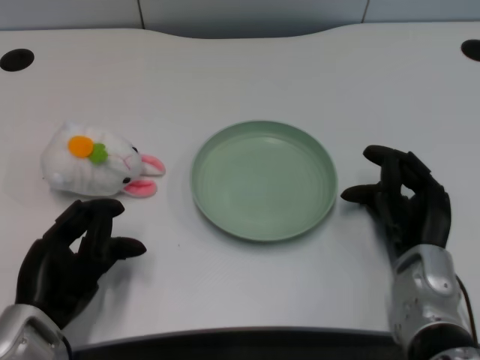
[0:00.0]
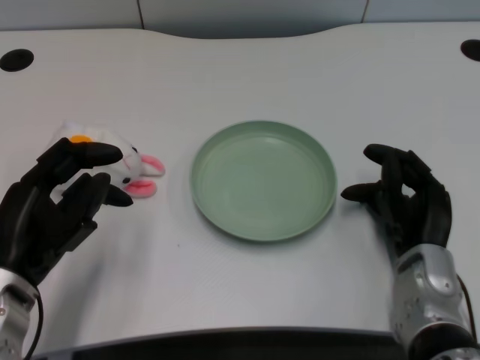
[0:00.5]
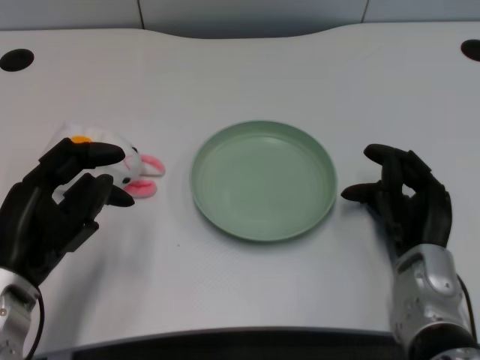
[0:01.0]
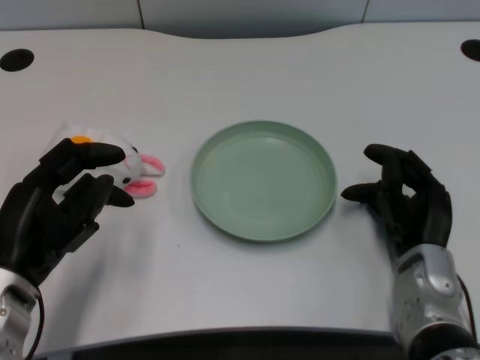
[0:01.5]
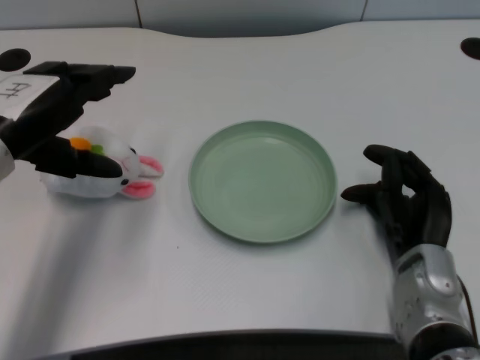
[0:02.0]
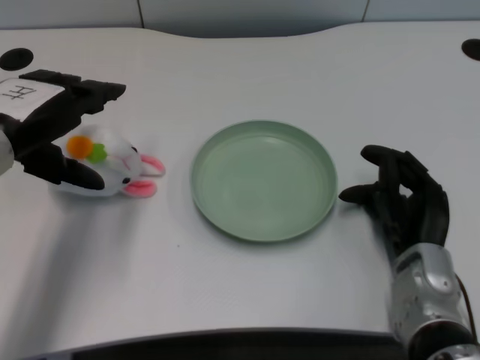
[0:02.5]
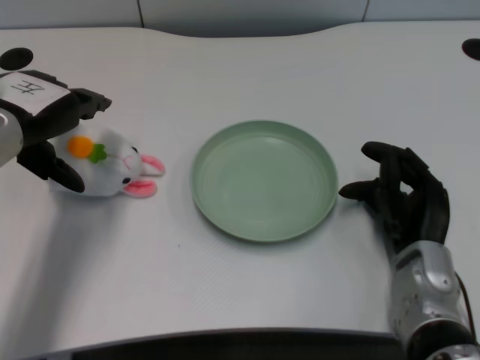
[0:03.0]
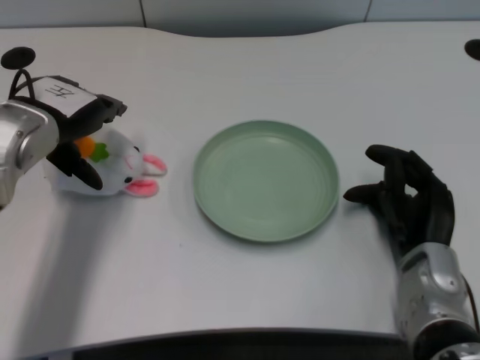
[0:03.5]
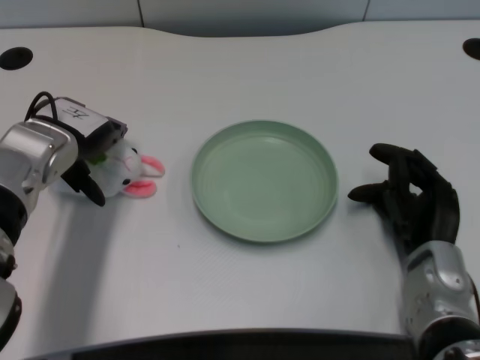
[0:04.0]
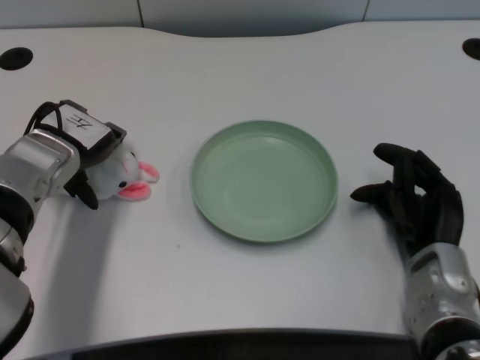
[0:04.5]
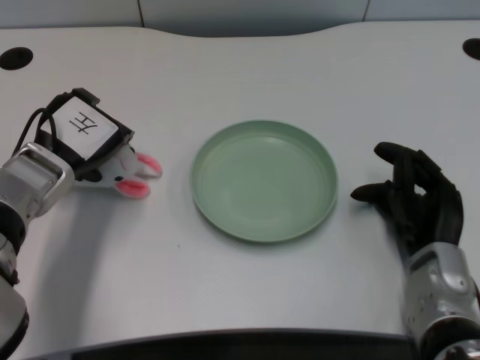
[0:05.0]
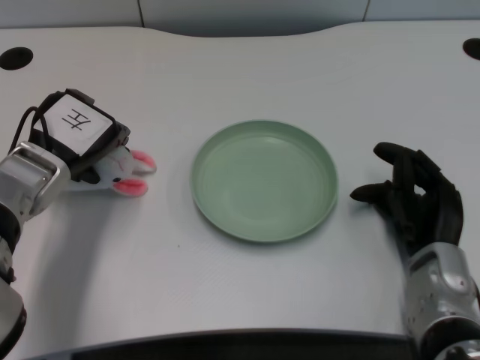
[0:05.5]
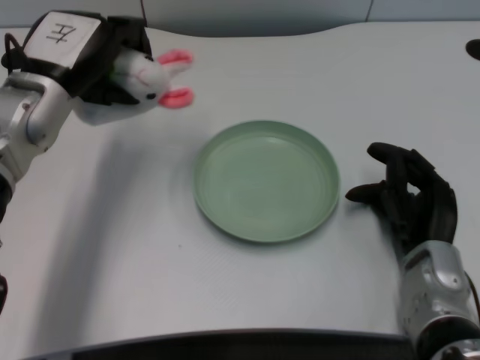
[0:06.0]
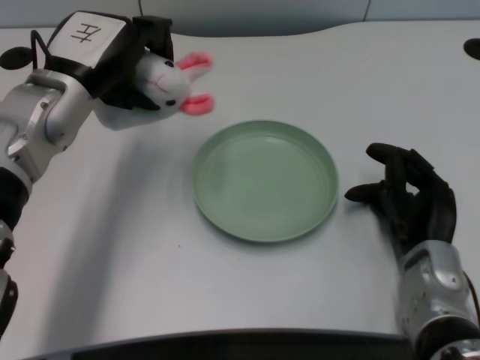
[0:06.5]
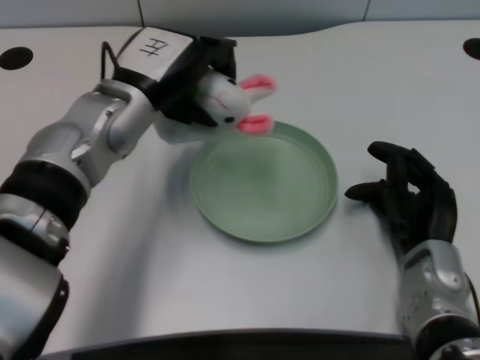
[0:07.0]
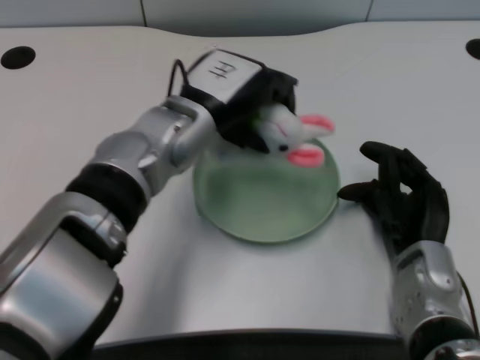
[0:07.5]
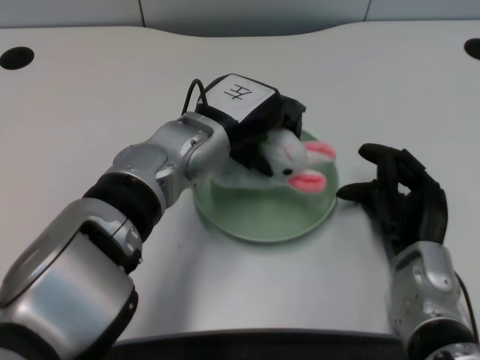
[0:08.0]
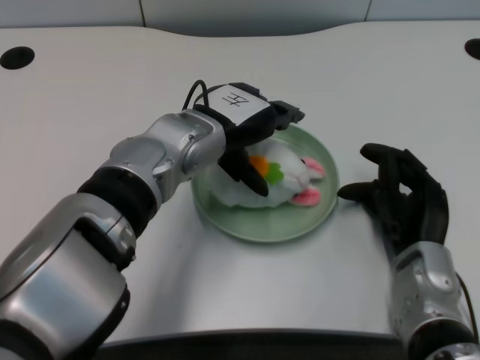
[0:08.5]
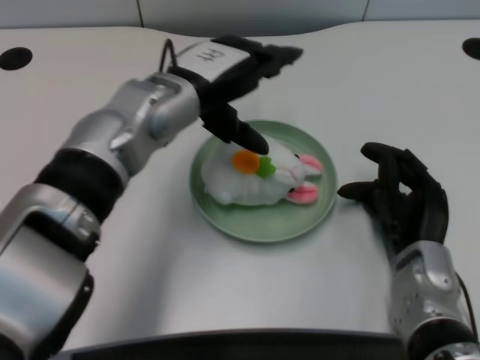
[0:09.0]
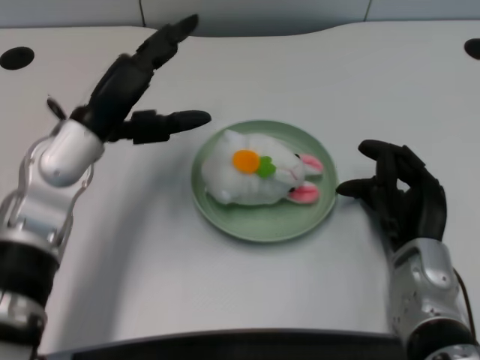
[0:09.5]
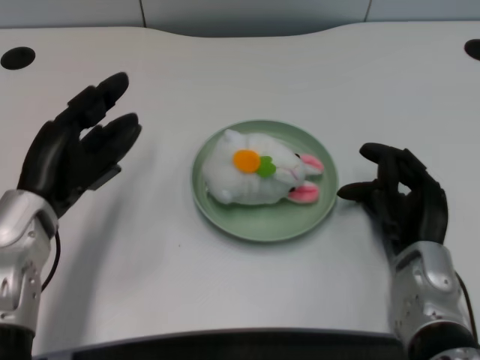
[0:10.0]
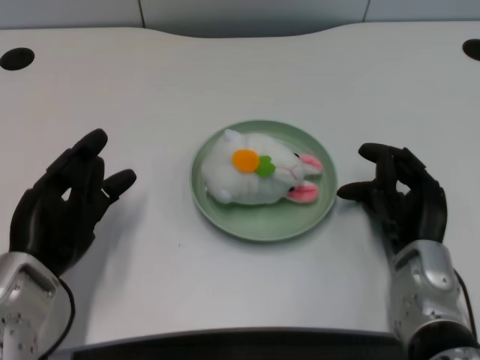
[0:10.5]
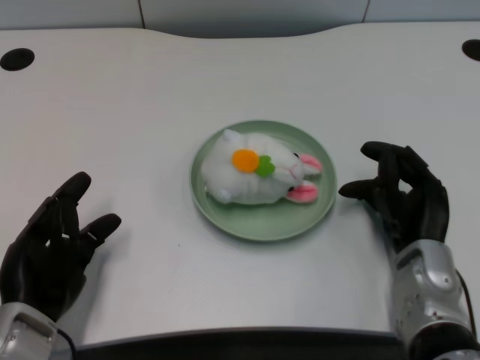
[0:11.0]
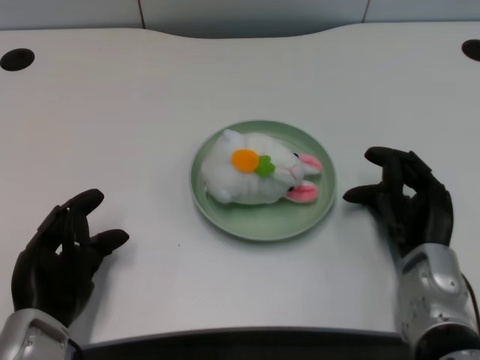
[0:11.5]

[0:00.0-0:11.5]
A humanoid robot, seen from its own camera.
Task of the whole recording: pick up the rabbit doll from the table and place it on the plate.
Step, 0:02.0 to 0:05.5: Grasp the rabbit doll with the left gripper.
Step, 0:06.0 to 0:08.5: Place the rabbit doll into the plate with the left gripper.
0:02.0 to 0:04.0: The left hand shifts roughly 10 cm forward and downward.
0:06.0 to 0:07.5: The left hand moves to the right, roughly 15 cm.
0:07.5 to 0:09.5: The left hand heads to the left, covering roughly 10 cm.
0:09.5 to 0:11.5: The left hand travels backward and downward by about 15 cm.

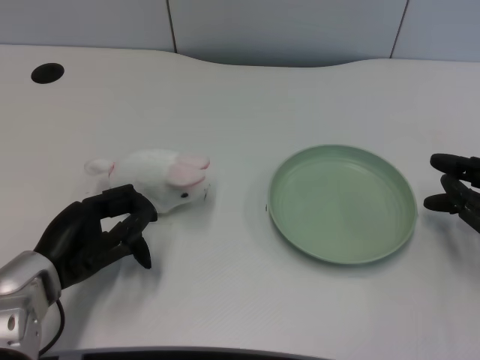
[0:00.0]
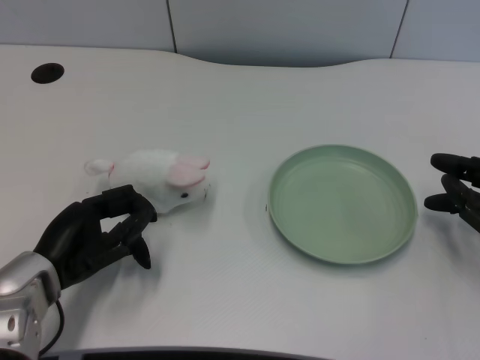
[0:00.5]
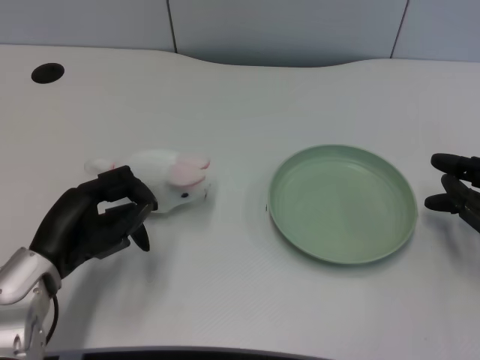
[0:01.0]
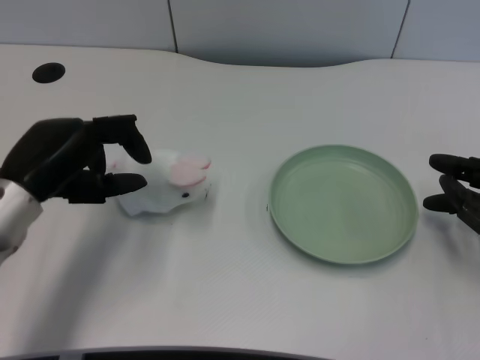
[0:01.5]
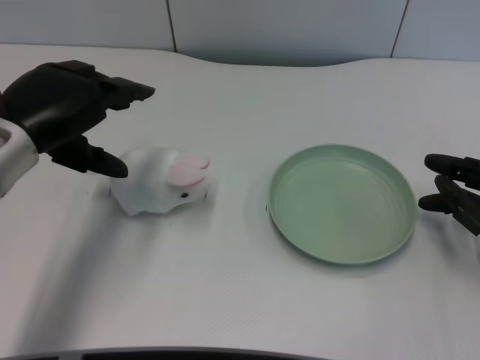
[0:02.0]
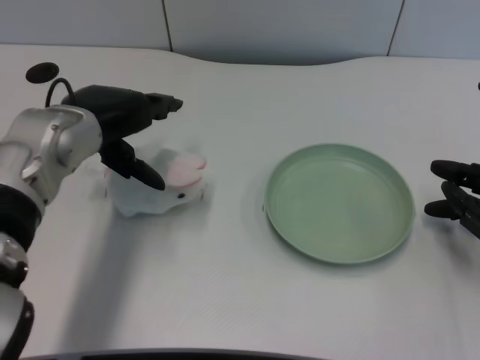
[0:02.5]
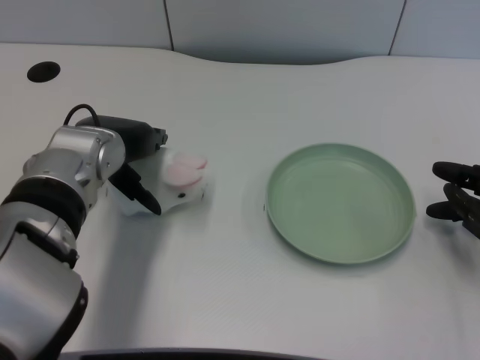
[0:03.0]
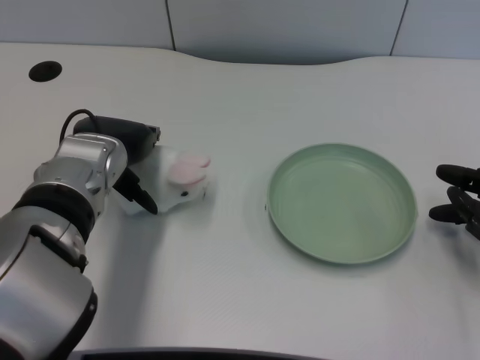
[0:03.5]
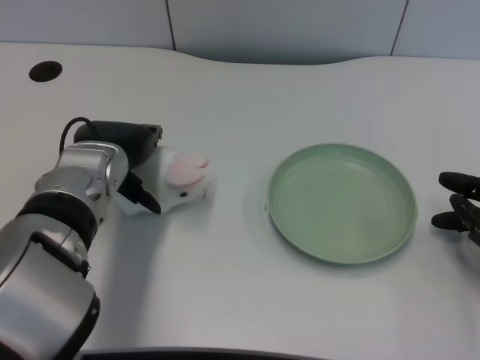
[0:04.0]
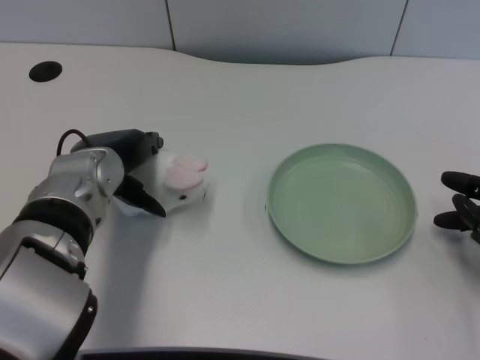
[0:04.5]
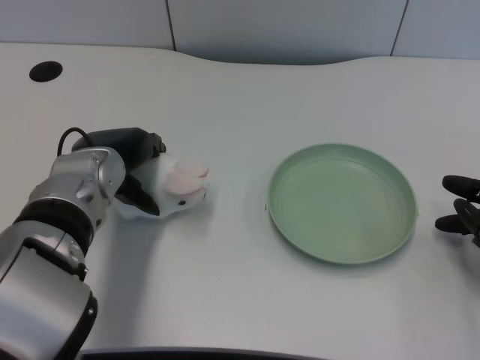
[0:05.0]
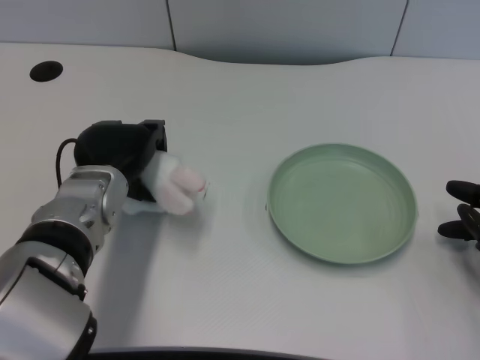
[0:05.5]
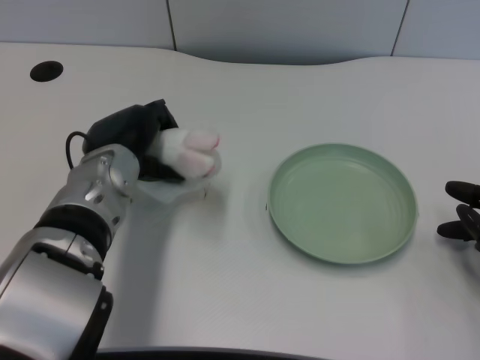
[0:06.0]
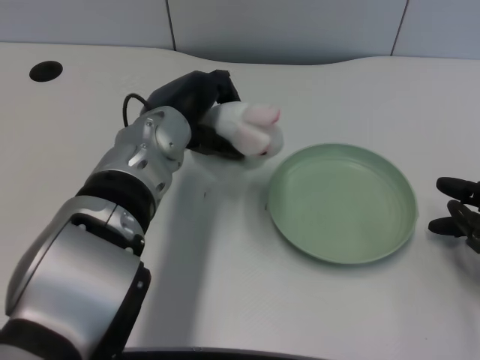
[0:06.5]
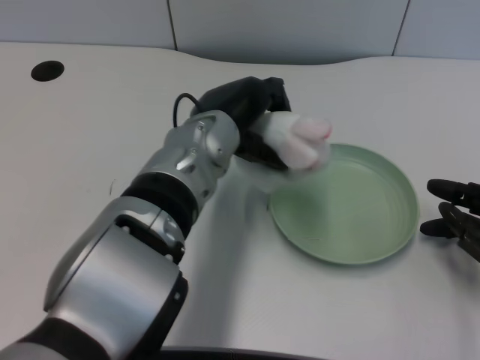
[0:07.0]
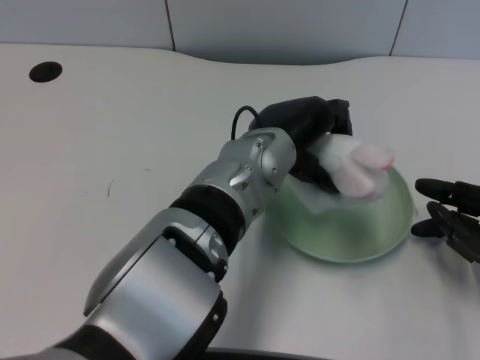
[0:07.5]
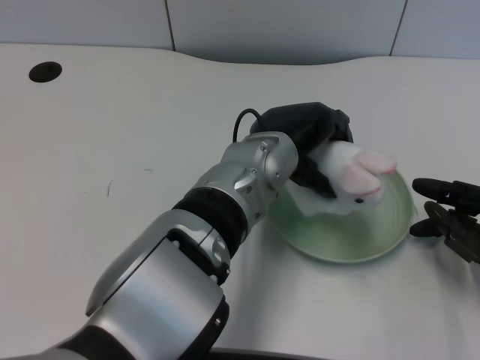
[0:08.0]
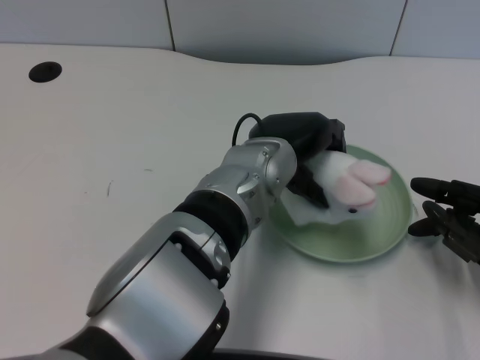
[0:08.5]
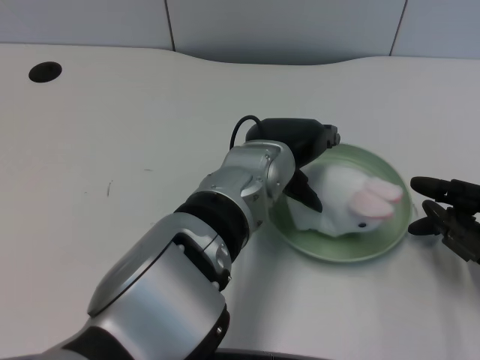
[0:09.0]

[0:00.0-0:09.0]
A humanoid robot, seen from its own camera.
Task of the whole recording: pick up the rabbit doll from the table and place it on the plate.
Step, 0:01.0 to 0:05.5: Grasp the rabbit doll with the left gripper.
0:02.0 to 0:04.5: The left hand shifts some 10 cm to the right and downward.
0:04.5 to 0:07.0: The left hand moves to the right, some 10 cm.
0:07.0 to 0:09.0: The left hand moves some 5 cm.

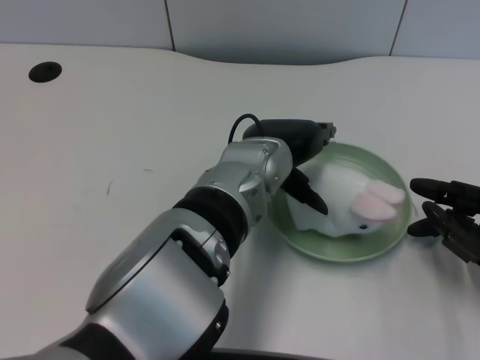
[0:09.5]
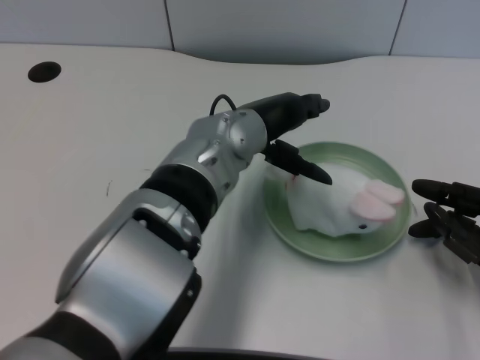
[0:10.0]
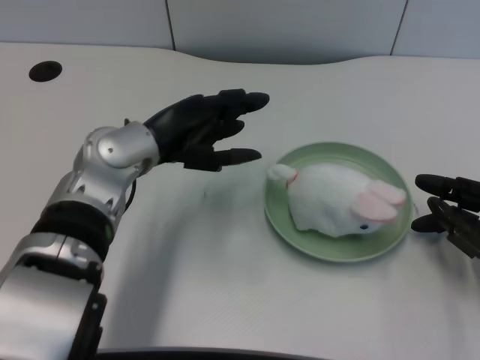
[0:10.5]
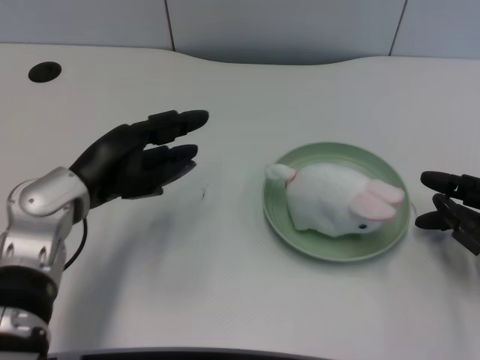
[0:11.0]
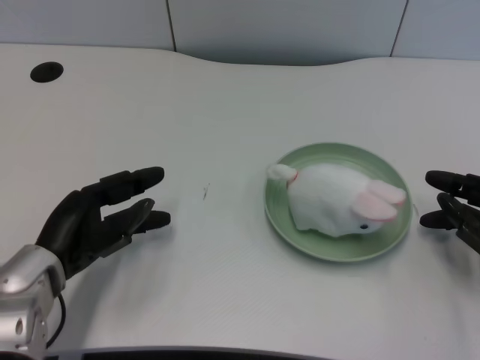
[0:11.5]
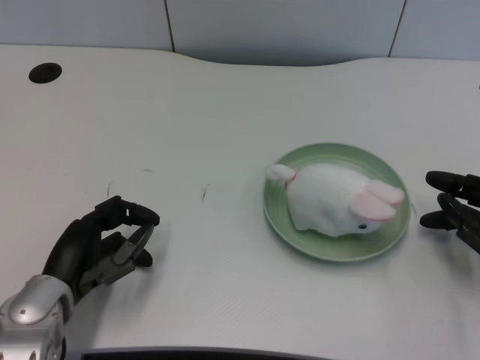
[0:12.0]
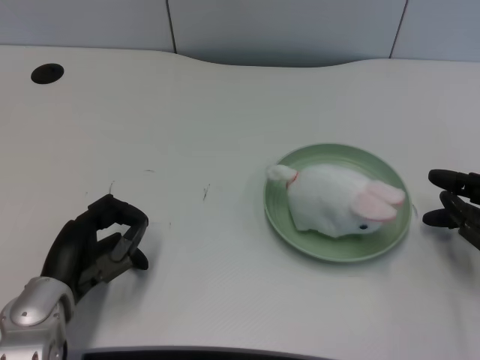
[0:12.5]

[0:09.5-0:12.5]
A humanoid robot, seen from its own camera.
Task of the whole recording: pick up the rabbit doll from the table and place it on the plate.
0:09.5 to 0:11.0: The left hand moves to the left, roughly 20 cm.
0:11.0 to 0:12.5: The left hand moves downward and backward, some 10 cm.
